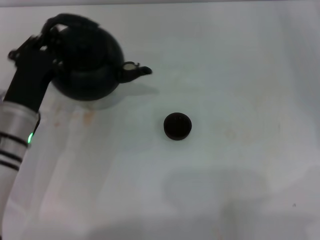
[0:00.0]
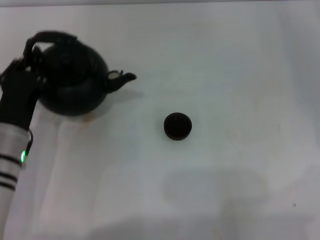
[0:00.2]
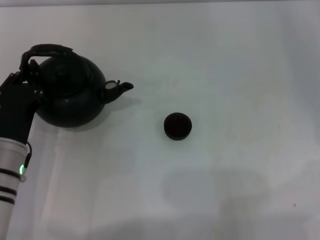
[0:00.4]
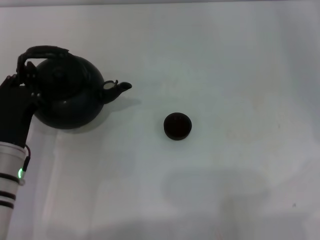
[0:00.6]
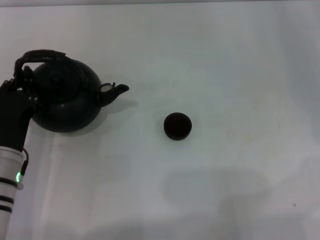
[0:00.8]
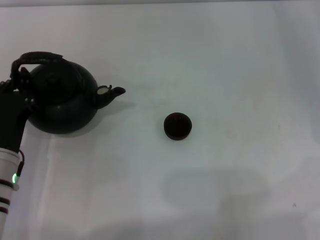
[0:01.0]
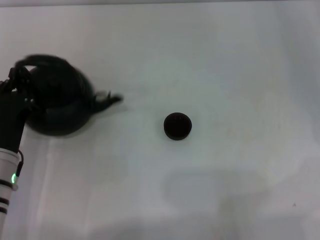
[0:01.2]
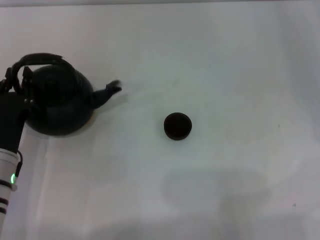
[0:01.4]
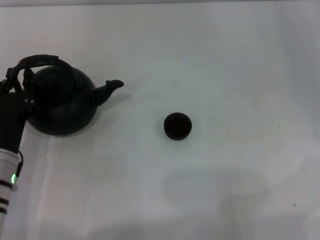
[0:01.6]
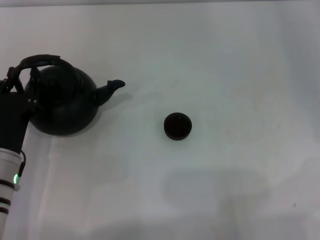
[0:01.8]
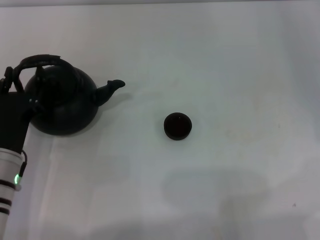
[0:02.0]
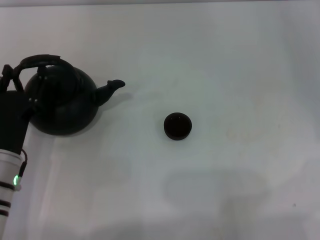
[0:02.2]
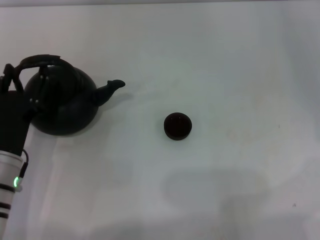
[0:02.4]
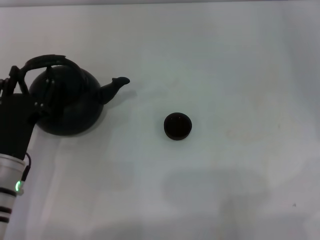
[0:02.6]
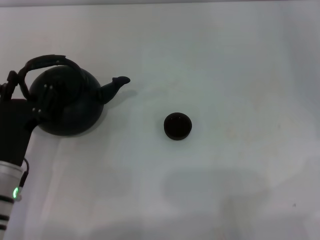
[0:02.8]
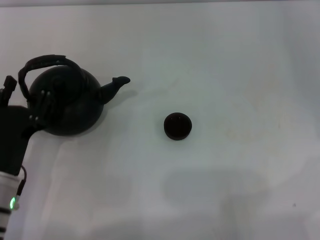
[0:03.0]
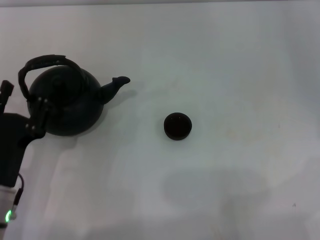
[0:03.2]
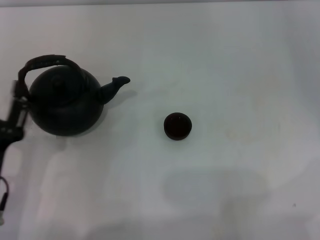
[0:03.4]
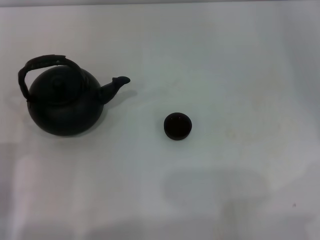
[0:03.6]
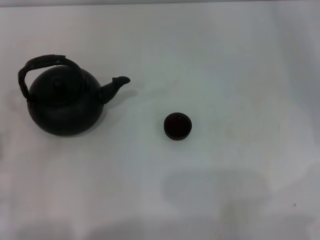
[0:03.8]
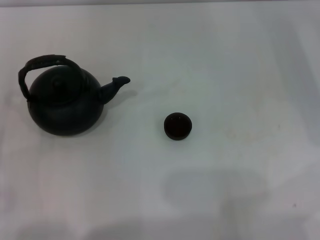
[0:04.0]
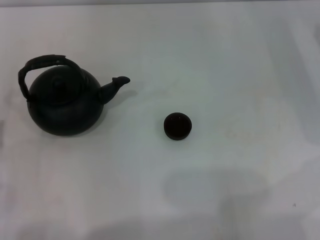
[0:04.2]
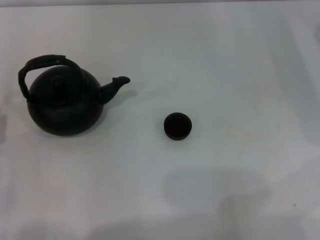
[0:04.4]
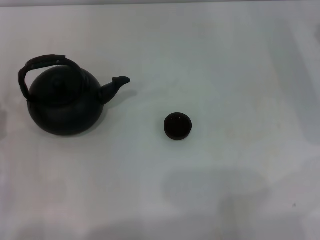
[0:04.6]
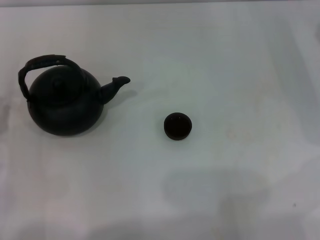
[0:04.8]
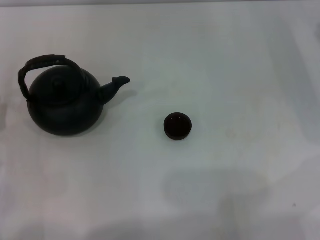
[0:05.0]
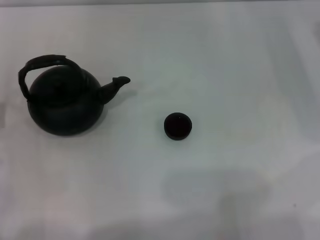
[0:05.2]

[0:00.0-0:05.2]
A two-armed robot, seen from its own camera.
Task of the whole recording: Grasp the handle of the teapot with one hand and pour tea into the teacup.
Step, 0:00.0 to 0:03.0: Put down the teapot with the left gripper.
0:00.0 to 0:01.8: The left gripper shifts some 5 cm backward.
0:01.8 to 0:03.4: The left gripper shifts about 5 cm backward, and opens.
0:03.4 to 0:05.2: The left gripper shifts some 5 cm to the left.

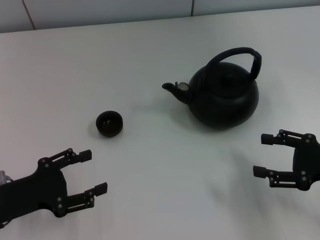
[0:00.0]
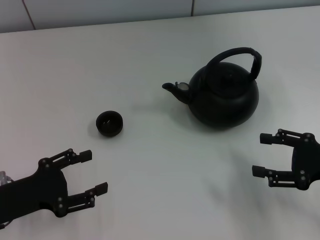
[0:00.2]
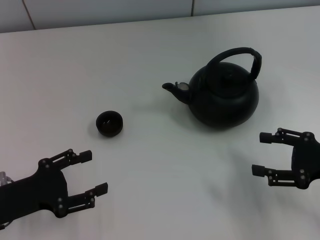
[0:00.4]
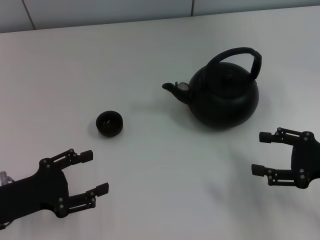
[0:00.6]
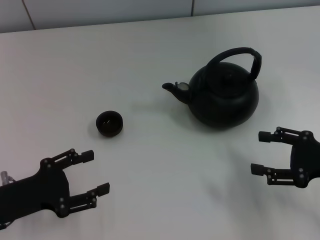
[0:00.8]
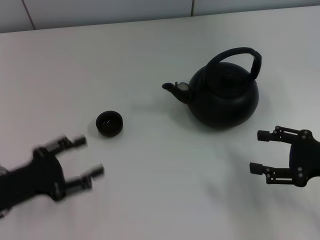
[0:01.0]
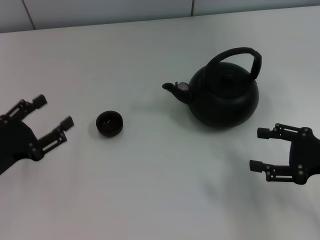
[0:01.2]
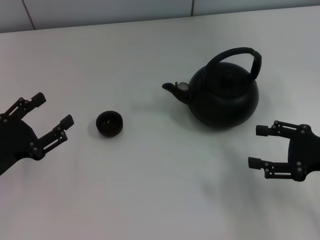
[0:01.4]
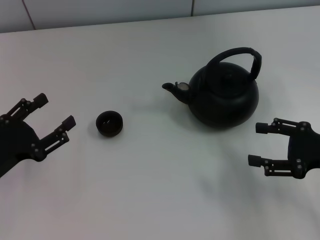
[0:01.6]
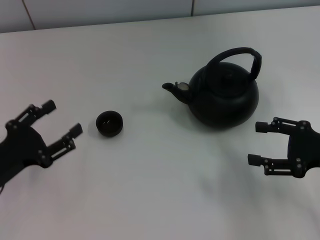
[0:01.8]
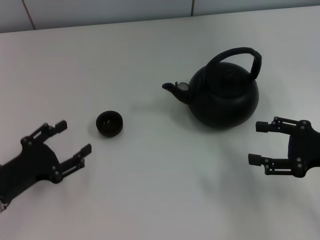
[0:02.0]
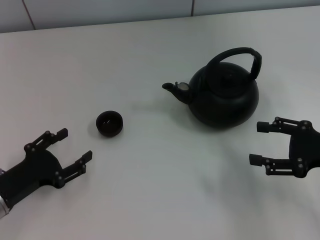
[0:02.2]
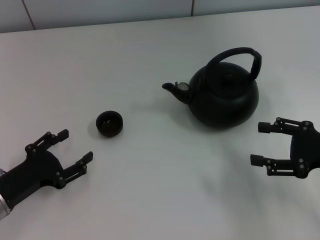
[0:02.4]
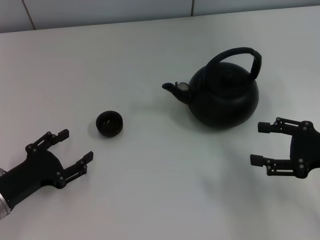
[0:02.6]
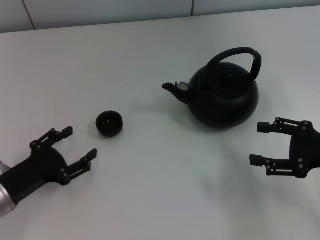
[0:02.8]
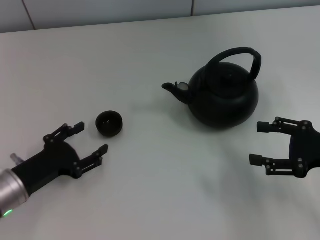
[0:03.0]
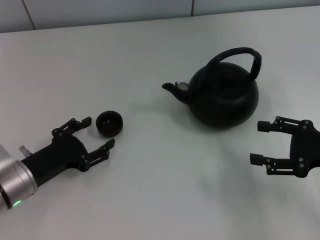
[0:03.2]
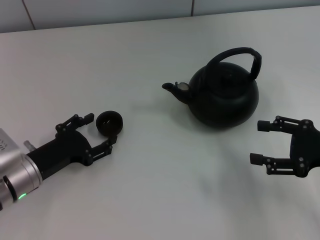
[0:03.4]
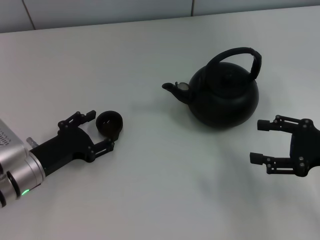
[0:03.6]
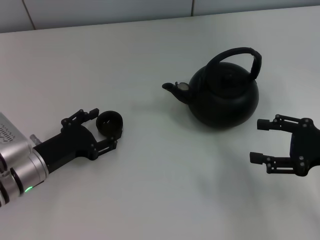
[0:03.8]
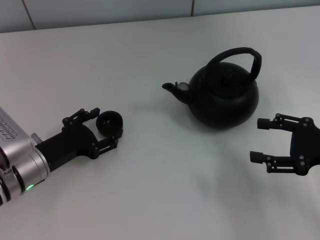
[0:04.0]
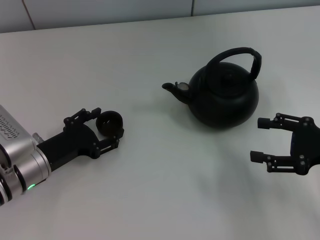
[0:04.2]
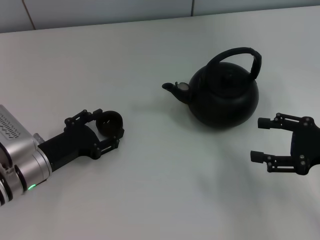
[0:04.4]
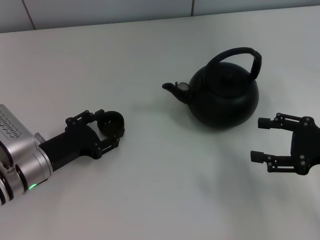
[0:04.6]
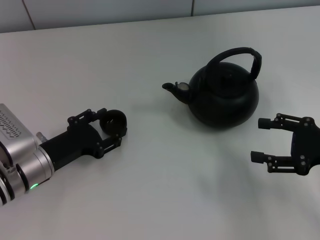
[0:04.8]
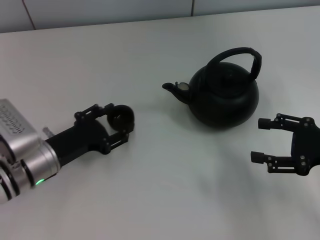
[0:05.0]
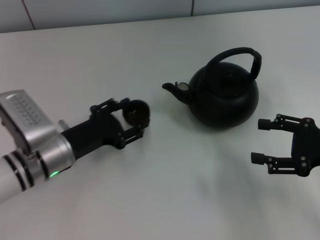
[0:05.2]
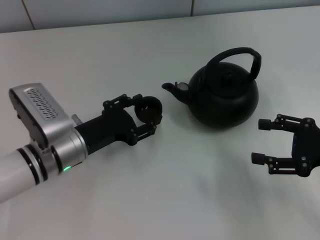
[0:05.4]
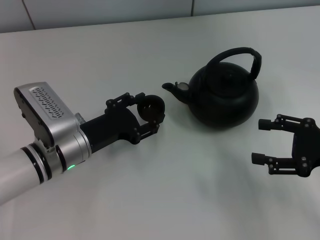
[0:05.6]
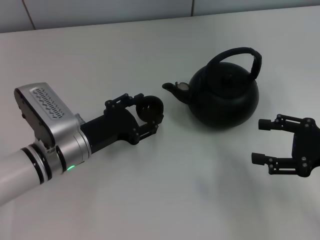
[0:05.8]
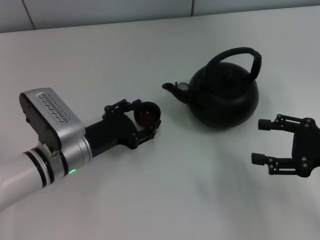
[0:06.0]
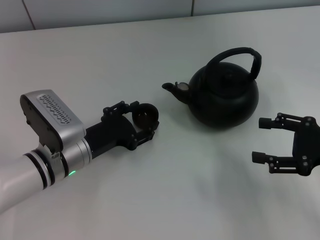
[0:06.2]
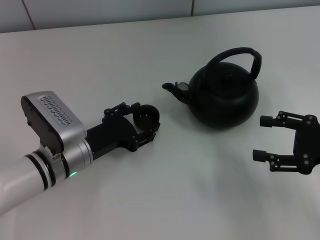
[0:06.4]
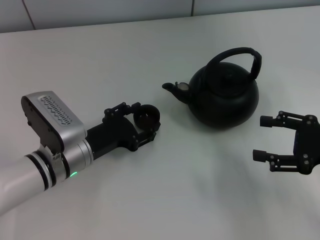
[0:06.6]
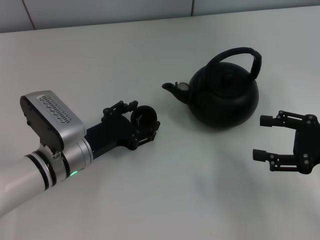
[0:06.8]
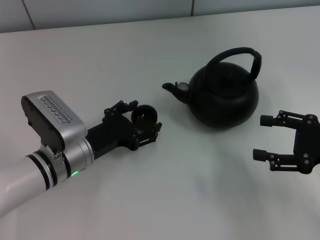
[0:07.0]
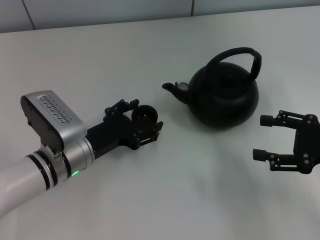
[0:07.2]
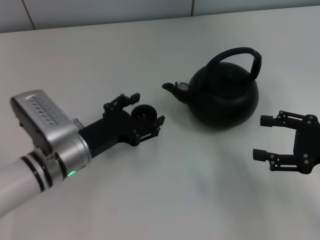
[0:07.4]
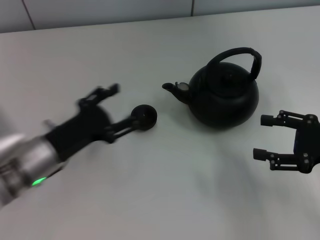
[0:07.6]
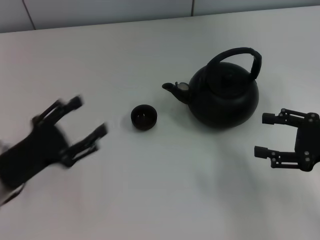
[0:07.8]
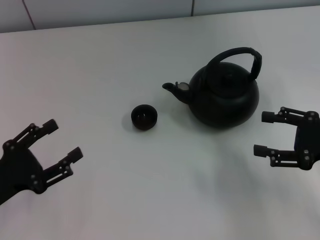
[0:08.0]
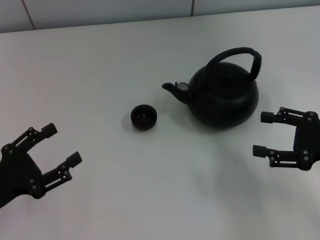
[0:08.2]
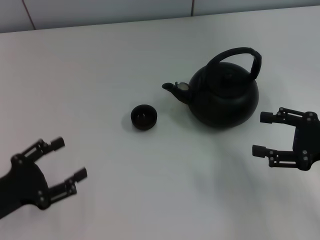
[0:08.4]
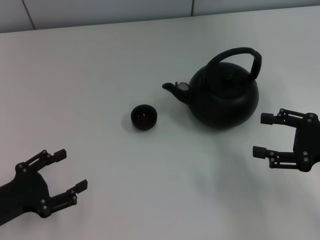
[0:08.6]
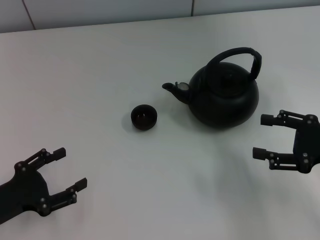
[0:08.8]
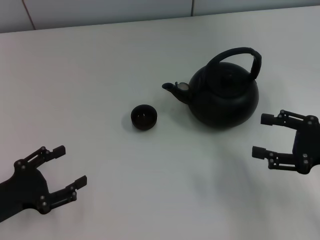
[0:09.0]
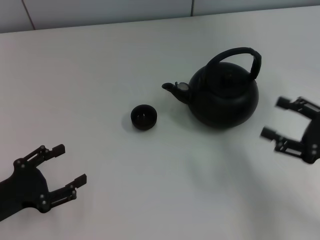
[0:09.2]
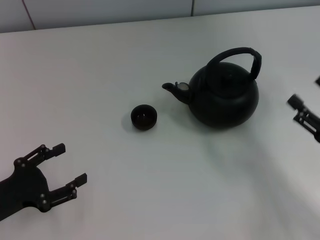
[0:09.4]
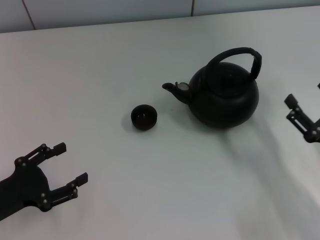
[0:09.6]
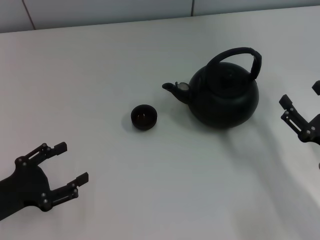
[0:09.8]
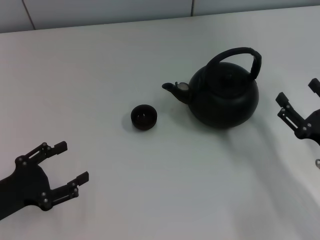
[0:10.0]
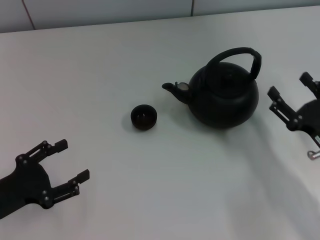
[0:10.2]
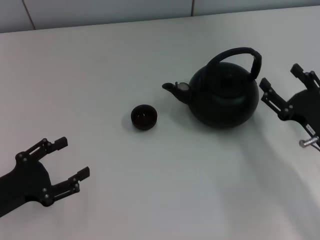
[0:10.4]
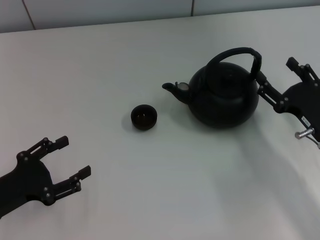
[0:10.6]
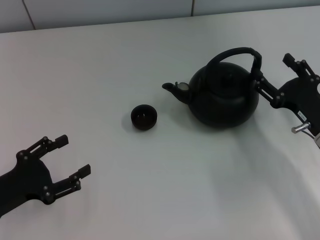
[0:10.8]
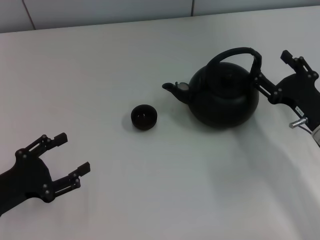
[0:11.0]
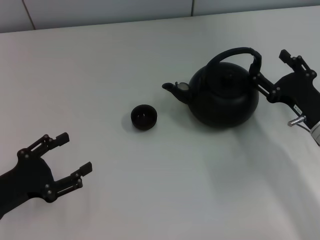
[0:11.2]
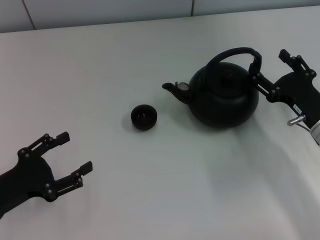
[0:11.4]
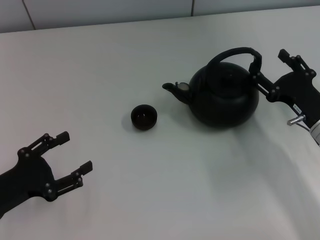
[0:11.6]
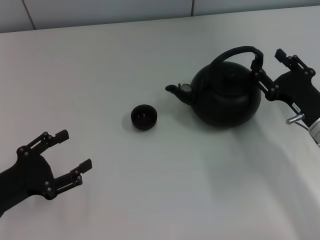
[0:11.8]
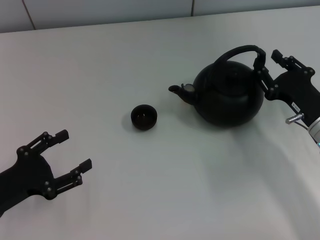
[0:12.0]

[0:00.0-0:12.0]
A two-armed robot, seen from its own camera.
Task of the whole recording: Grasp the handle of the teapot with one hand and pour tea into the teacup.
Step, 0:00.0 to 0:05.0: Pick up the teacup with the left gripper.
Step, 0:05.2 to 0:07.4: Place the teacup in the center of view with the left gripper.
0:01.6 to 0:03.0: The left gripper moves about 5 cm.
0:03.0 to 0:04.4: The grippers make only small movements.
0:04.4 to 0:06.0: The left gripper moves to the right, roughly 5 cm.
0:06.0 to 0:07.6: The left gripper ends up roughly 5 cm from where it was, and opens up.
0:07.6 to 0:09.0: The left gripper shifts approximately 10 cm to the left and backward.
0:09.0 to 0:10.4: The right gripper shifts about 5 cm downward.
0:10.4 to 0:12.0: The grippers make only small movements.

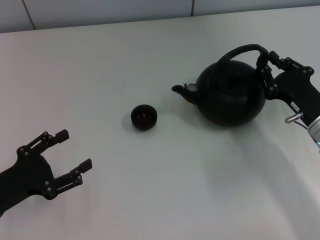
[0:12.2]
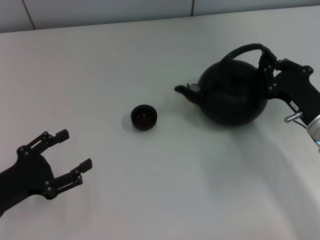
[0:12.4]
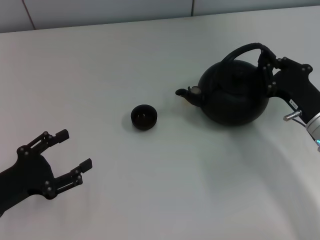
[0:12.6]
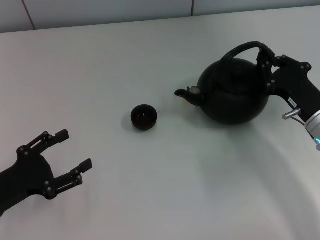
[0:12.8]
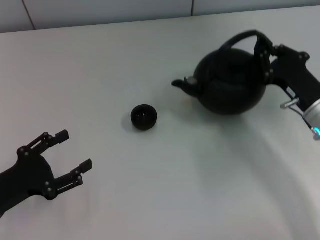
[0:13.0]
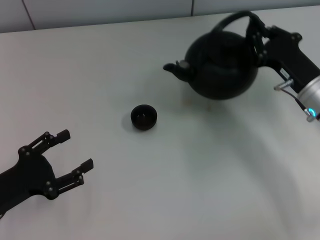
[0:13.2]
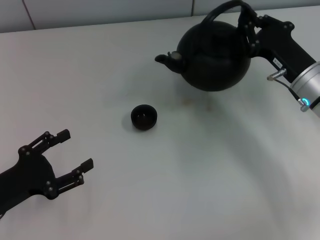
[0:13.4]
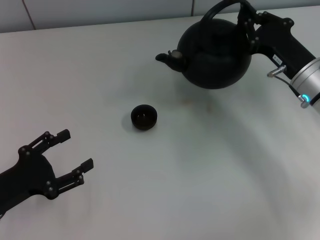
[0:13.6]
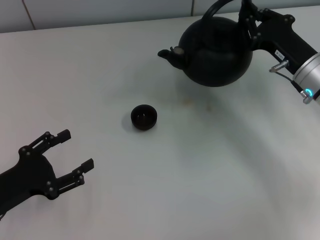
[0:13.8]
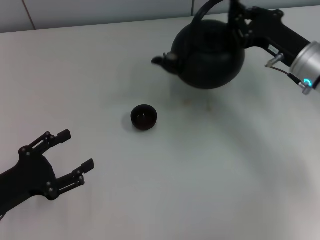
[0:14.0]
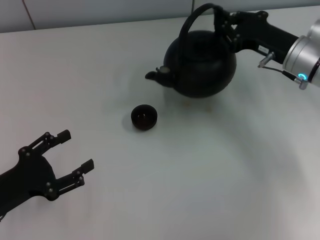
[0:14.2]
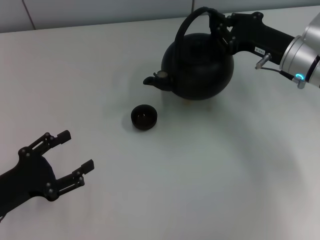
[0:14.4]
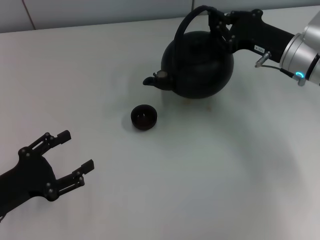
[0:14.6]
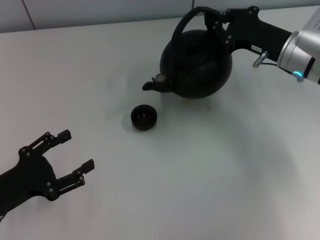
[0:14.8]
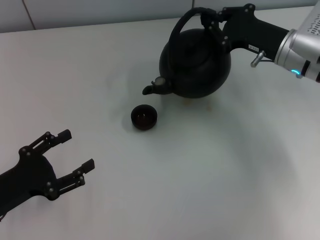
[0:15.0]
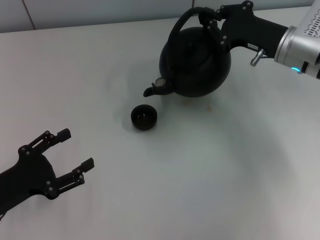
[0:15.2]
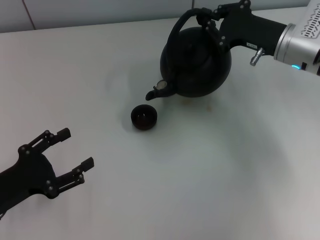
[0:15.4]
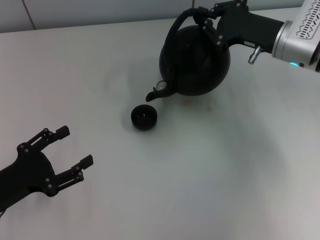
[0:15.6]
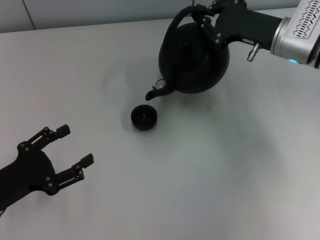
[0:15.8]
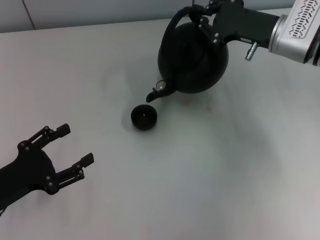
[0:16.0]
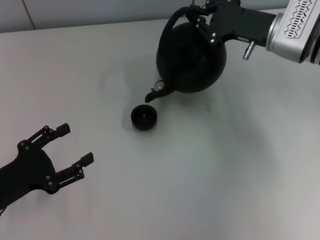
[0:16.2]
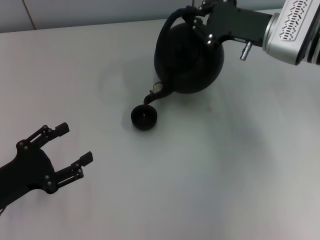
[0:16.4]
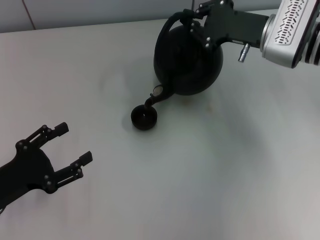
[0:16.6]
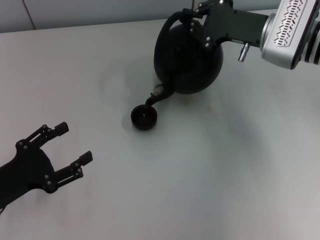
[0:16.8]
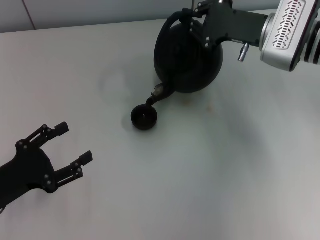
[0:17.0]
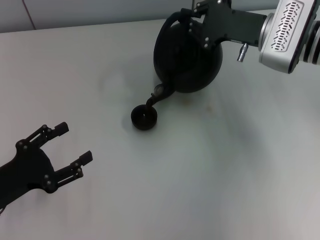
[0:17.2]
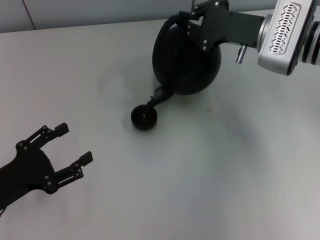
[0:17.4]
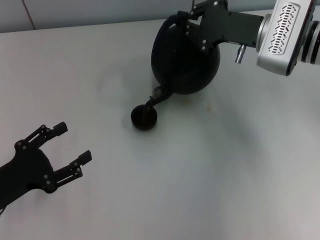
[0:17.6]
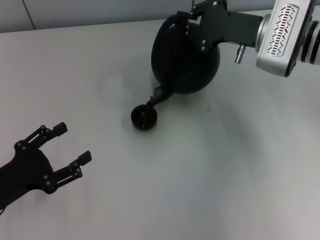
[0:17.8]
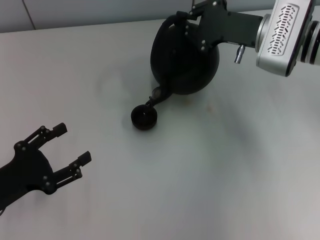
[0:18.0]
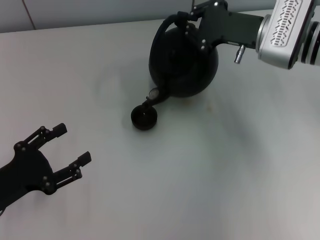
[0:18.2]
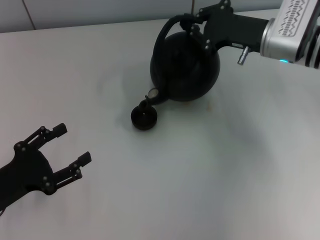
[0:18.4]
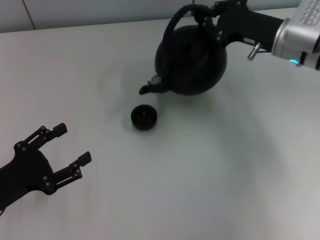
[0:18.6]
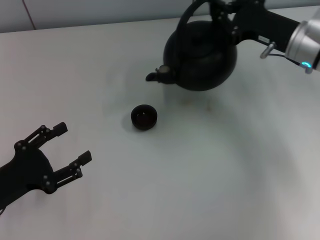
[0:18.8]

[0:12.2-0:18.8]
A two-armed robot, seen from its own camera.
Task of the whole recording: Grasp the handle of the teapot with one hand and pour tea into the teacup.
0:12.2 to 0:13.8: The right gripper heads forward, covering some 5 cm, and closes.
0:13.8 to 0:15.4: The right gripper ends up roughly 5 cm from where it was.
0:15.4 to 0:17.2: The grippers stay close to where they were, moving slightly.
